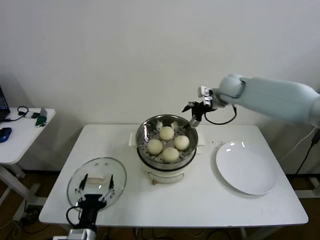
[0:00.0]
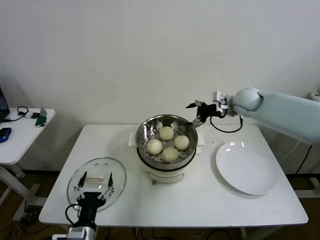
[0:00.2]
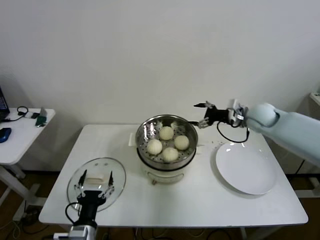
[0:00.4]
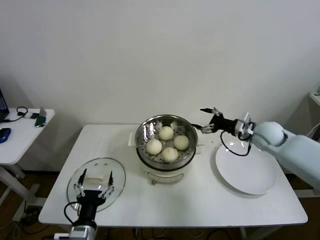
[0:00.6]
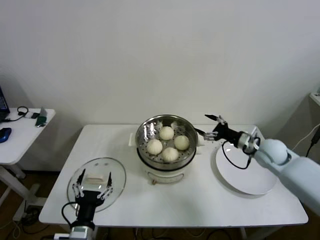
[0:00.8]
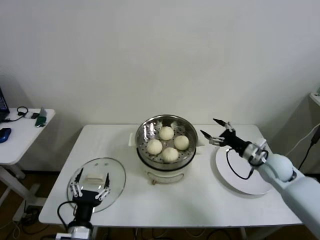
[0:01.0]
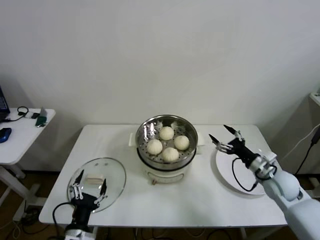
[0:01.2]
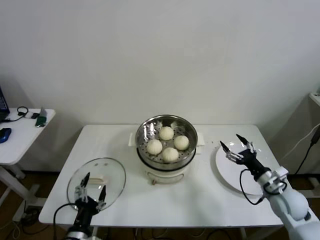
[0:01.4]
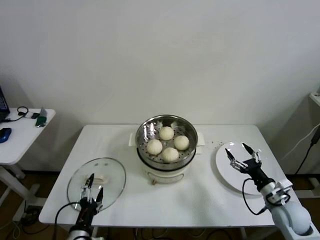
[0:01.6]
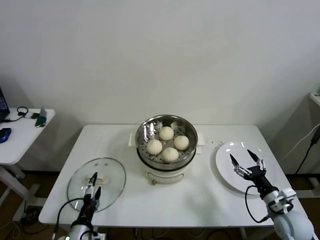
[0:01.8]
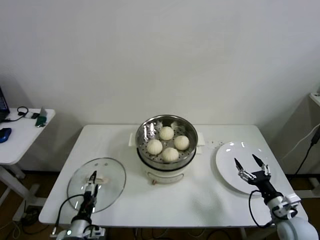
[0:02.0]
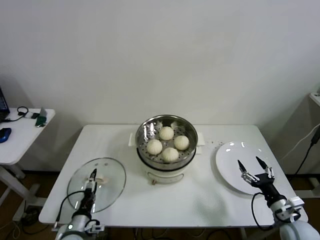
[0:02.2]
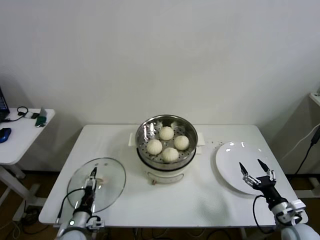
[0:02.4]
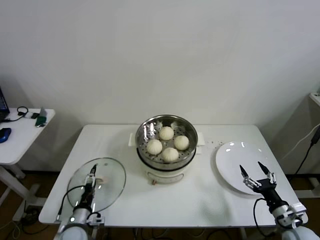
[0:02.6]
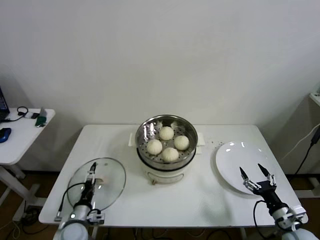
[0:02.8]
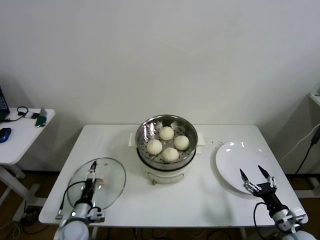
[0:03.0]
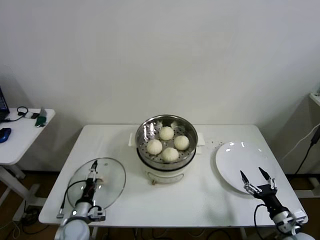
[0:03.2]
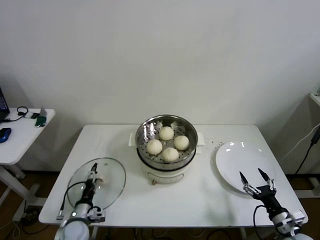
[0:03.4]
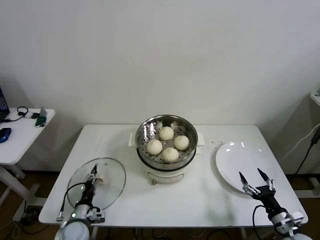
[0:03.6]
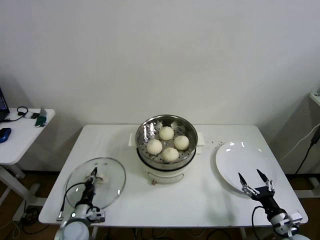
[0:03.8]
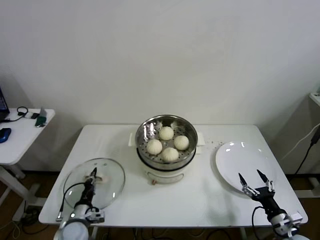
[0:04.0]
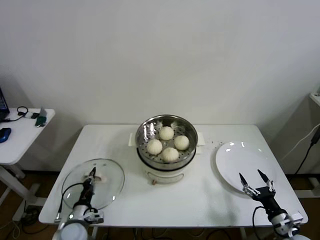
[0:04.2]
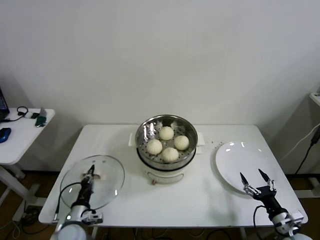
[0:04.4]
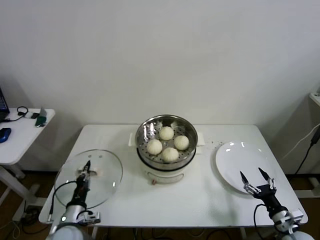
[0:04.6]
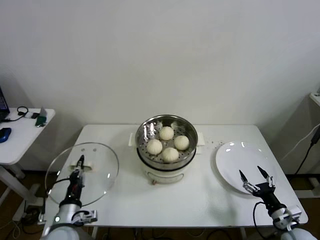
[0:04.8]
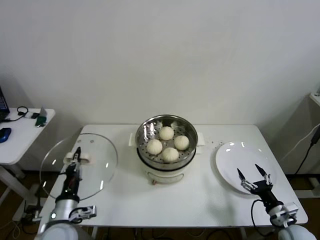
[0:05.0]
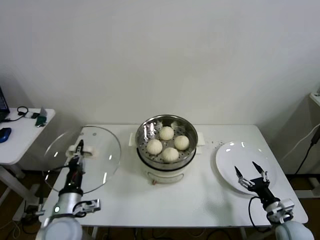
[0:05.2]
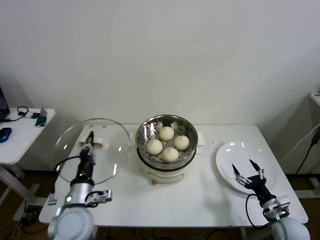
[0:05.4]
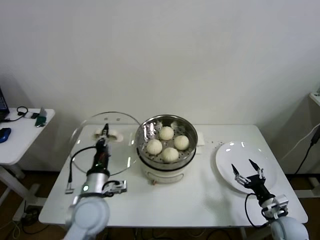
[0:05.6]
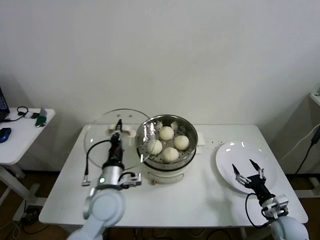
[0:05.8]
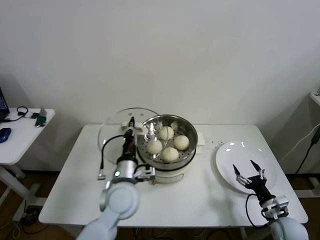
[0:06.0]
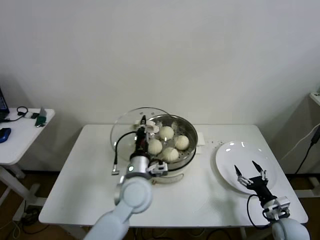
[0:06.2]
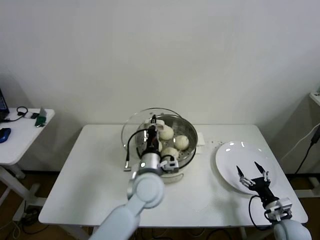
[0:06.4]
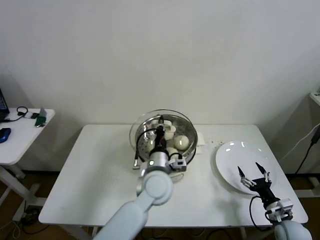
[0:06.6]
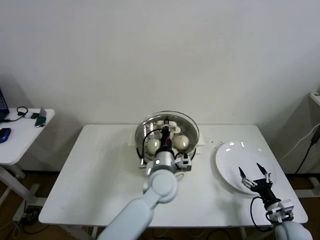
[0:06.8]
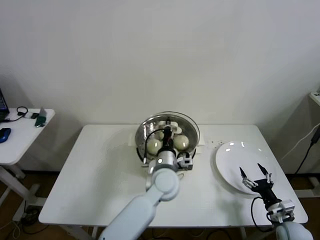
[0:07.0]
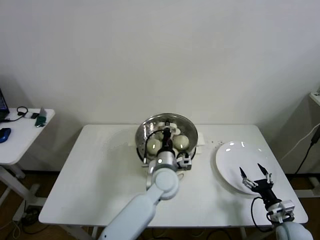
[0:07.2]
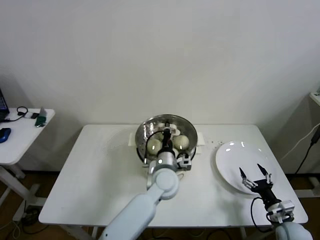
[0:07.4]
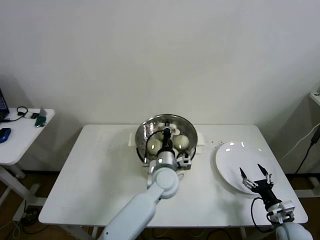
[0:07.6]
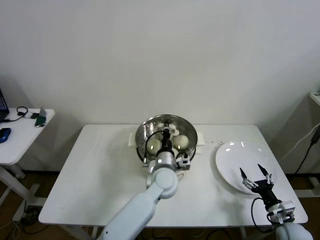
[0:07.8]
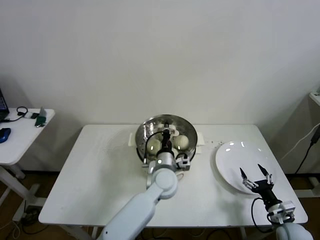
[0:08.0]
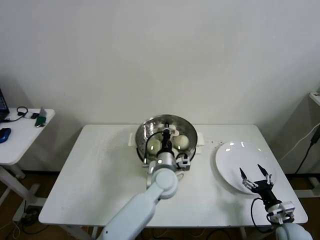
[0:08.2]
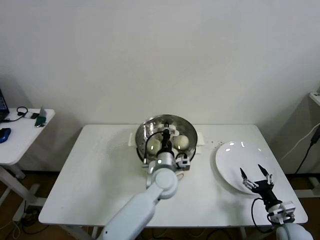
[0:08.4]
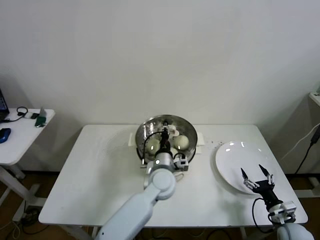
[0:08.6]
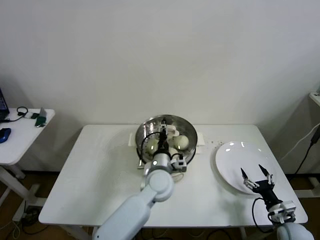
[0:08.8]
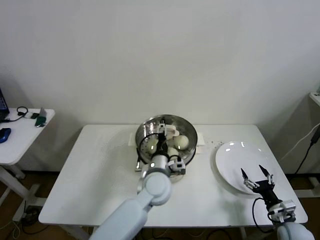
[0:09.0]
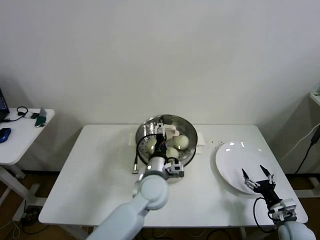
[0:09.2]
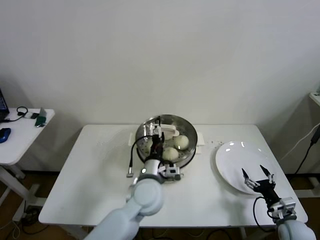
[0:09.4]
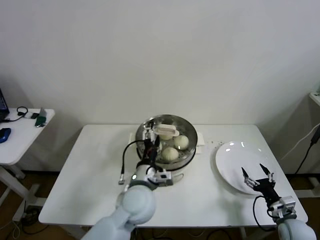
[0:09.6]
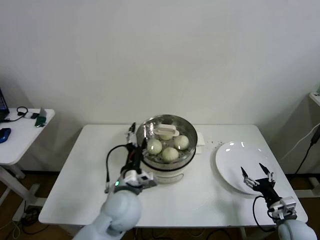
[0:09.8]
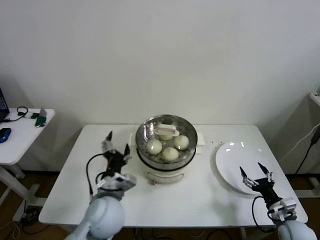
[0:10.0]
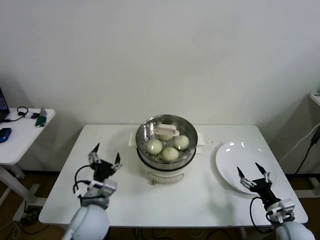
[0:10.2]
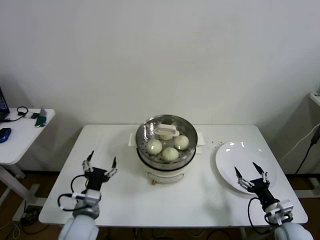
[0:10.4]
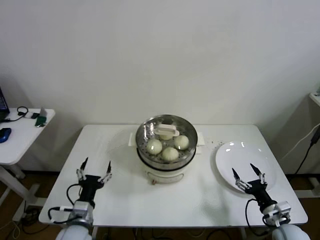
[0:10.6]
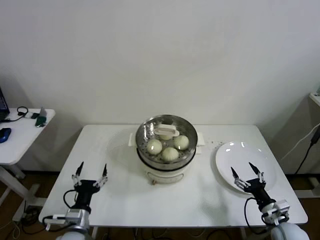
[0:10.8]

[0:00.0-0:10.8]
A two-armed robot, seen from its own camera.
Step, 0:00.0 to 0:03.8: Grasp the pot lid with left gripper.
Step, 0:04.0 to 0:08.6: Place the pot lid on the steamer with left gripper.
0:00.0 to 0:01.6: The right gripper travels backward, downward and to the right by approximately 40 cm.
0:01.6 to 0:03.0: The left gripper is displaced forward, downward and to the left by roughly 15 cm; the right gripper moves backward, approximately 10 cm.
0:03.0 to 0:04.6: The left gripper closes its fingers.
0:04.6 to 0:06.2: The left gripper moves to the right, upward and forward, roughly 30 cm.
0:06.2 to 0:07.8: The left gripper heads to the right, forward and downward, covering roughly 10 cm.
0:07.8 to 0:09.2: The left gripper ends up roughly 5 cm from where it was, and opens.
0:09.2 to 0:10.8: The left gripper moves to the left, backward and downward, about 30 cm.
